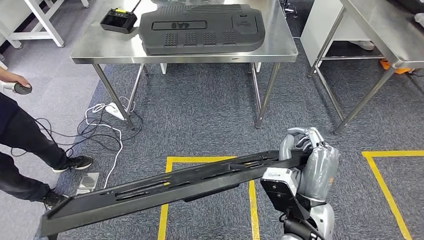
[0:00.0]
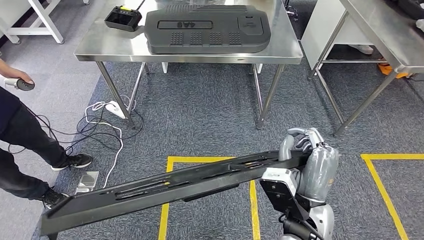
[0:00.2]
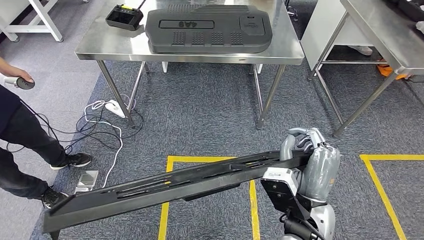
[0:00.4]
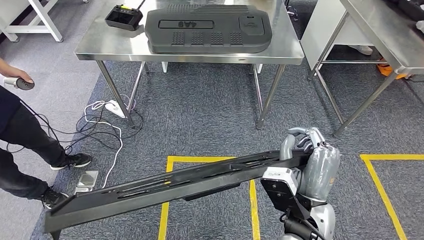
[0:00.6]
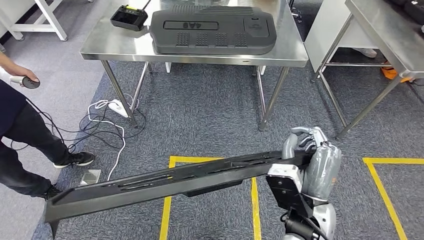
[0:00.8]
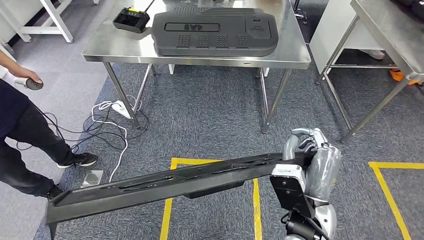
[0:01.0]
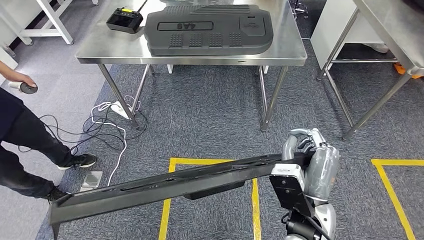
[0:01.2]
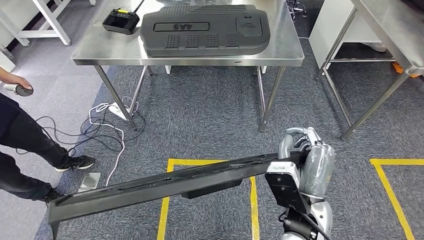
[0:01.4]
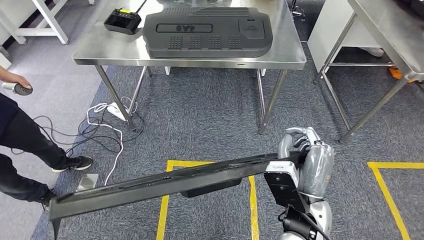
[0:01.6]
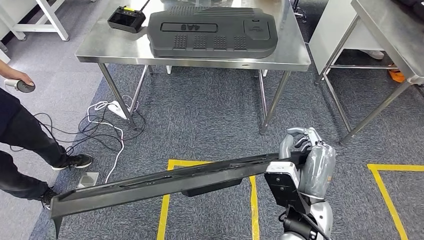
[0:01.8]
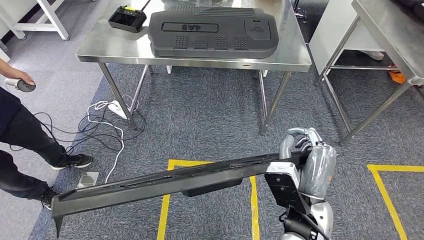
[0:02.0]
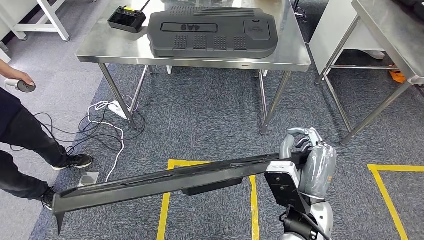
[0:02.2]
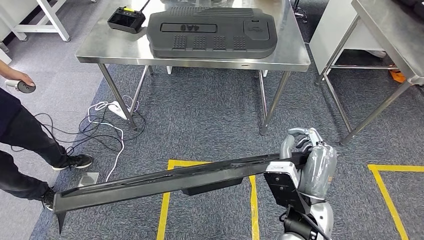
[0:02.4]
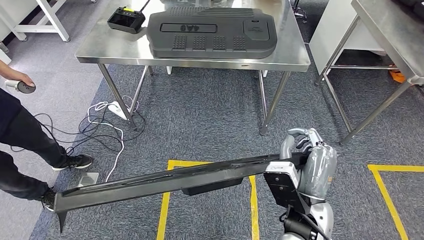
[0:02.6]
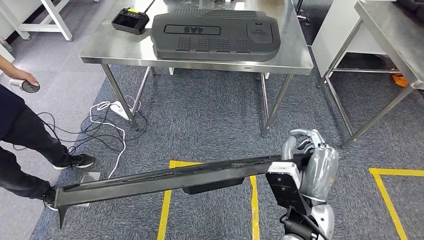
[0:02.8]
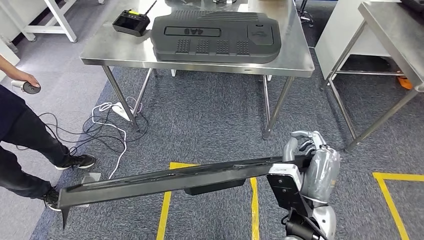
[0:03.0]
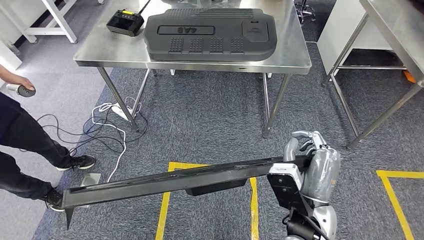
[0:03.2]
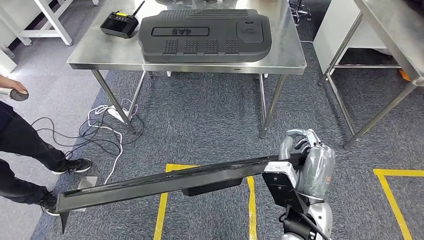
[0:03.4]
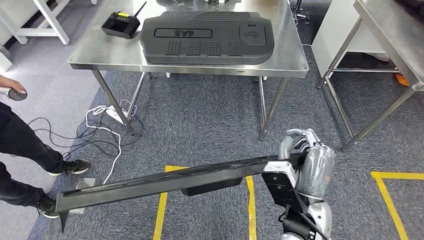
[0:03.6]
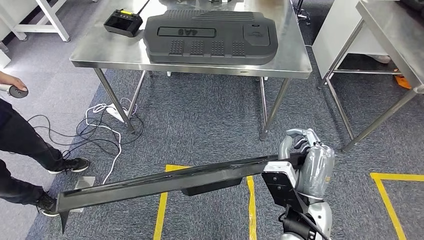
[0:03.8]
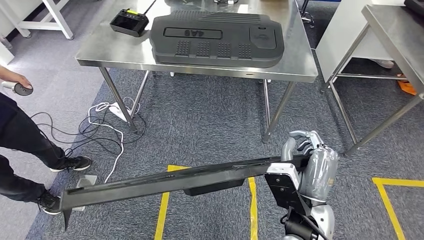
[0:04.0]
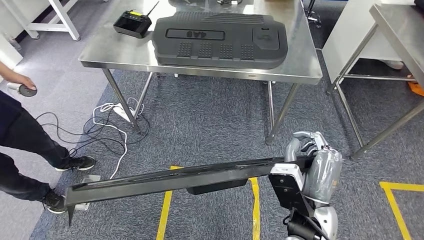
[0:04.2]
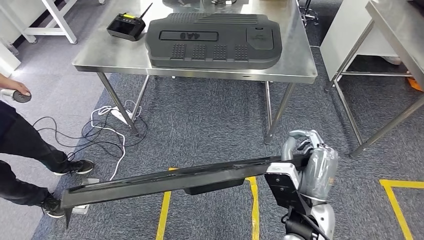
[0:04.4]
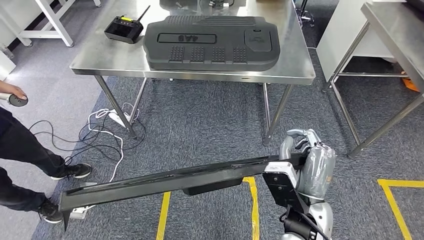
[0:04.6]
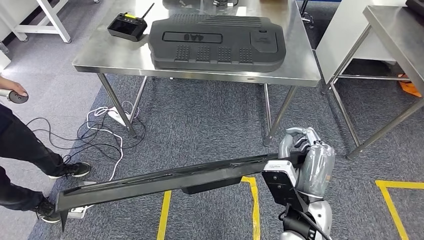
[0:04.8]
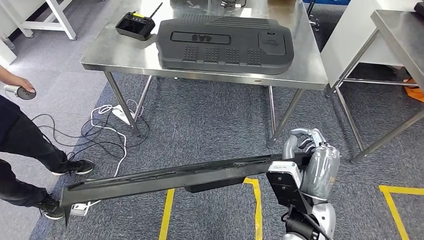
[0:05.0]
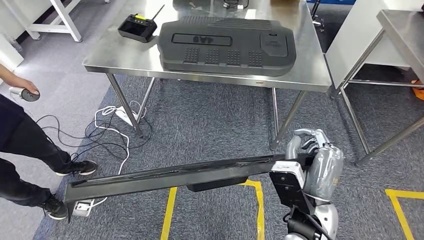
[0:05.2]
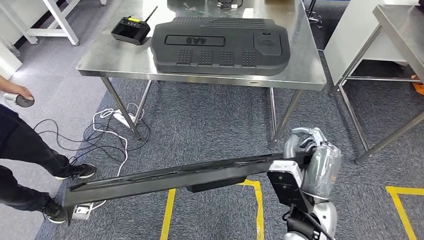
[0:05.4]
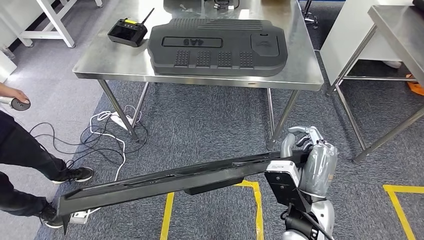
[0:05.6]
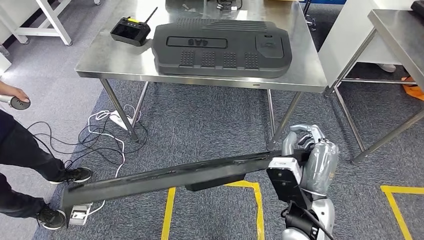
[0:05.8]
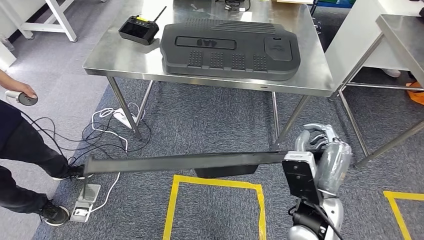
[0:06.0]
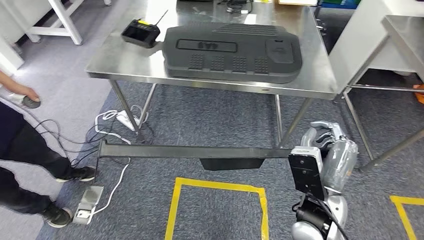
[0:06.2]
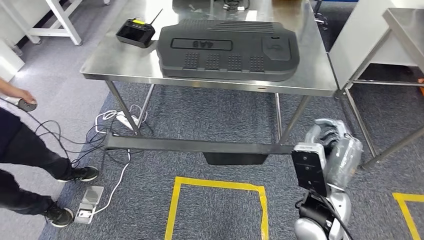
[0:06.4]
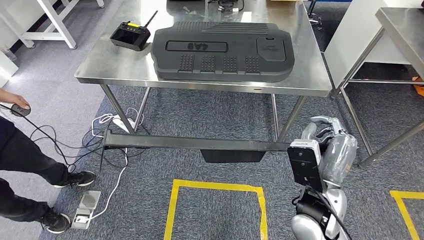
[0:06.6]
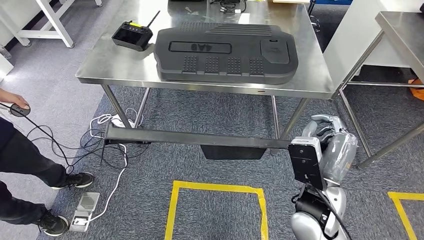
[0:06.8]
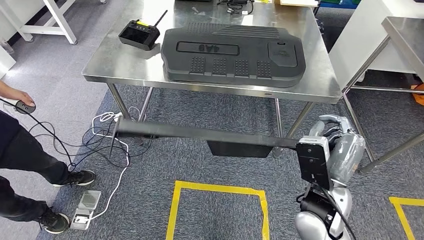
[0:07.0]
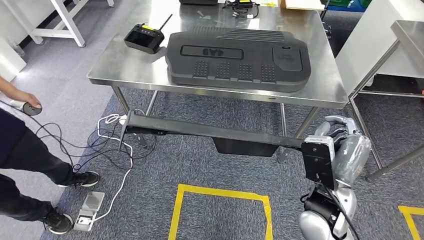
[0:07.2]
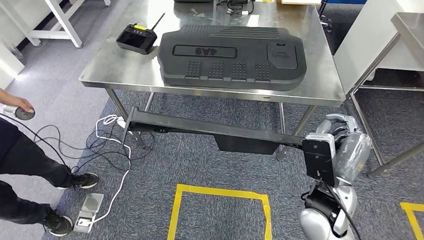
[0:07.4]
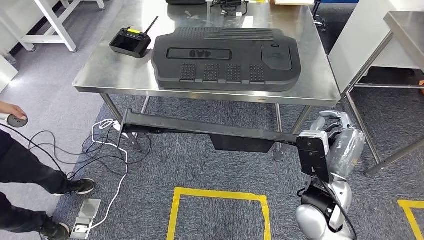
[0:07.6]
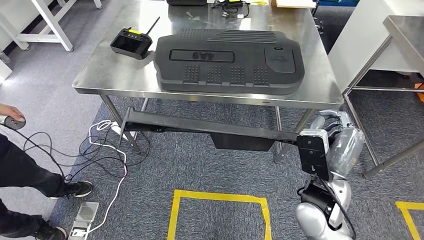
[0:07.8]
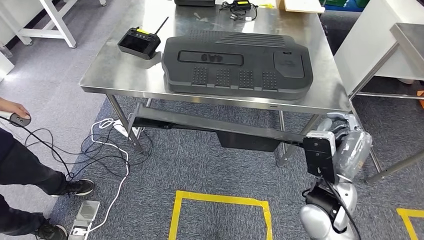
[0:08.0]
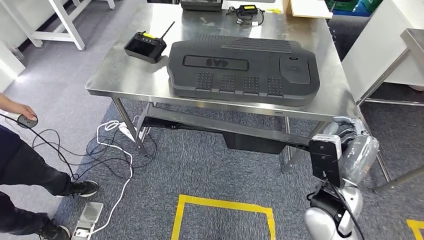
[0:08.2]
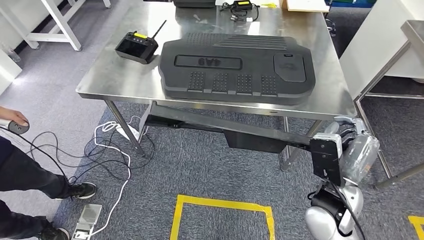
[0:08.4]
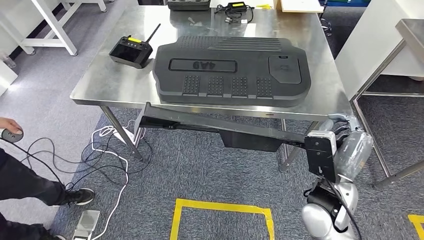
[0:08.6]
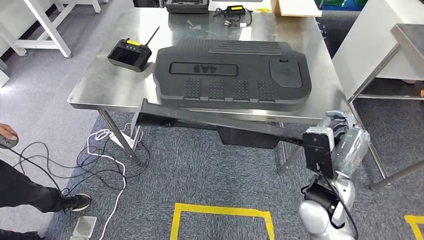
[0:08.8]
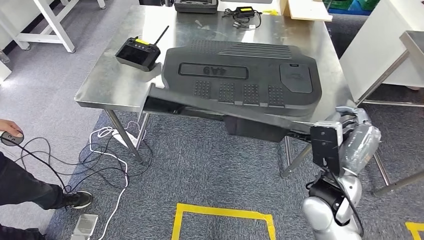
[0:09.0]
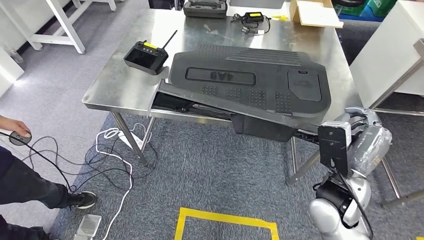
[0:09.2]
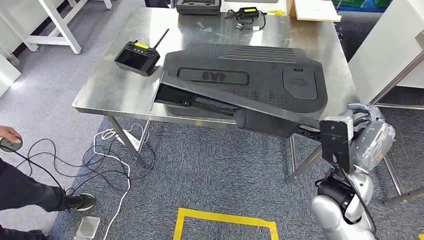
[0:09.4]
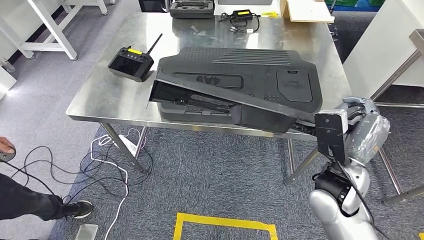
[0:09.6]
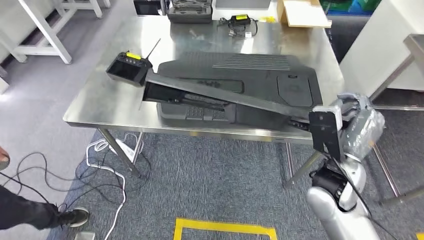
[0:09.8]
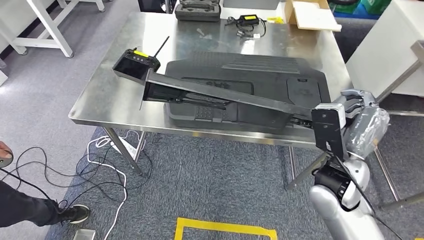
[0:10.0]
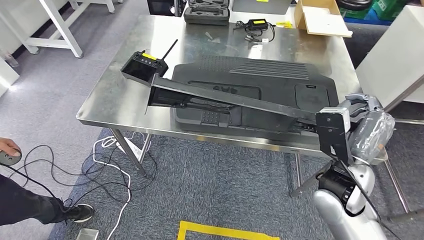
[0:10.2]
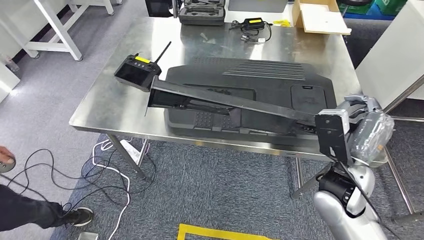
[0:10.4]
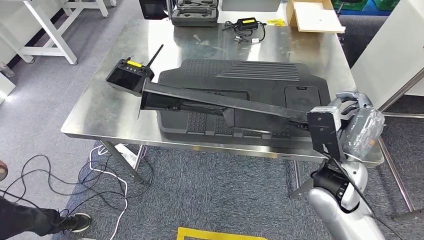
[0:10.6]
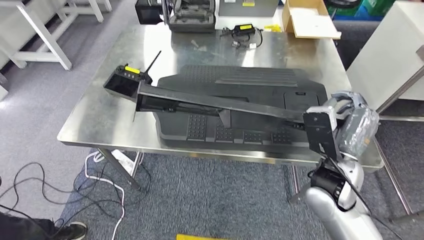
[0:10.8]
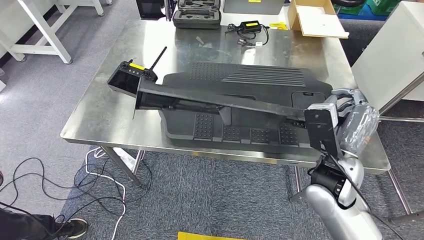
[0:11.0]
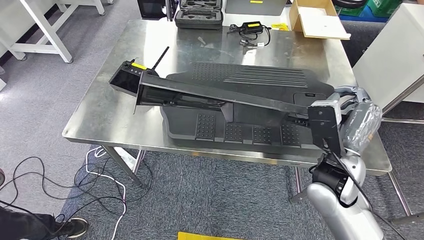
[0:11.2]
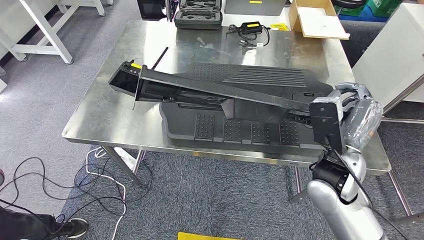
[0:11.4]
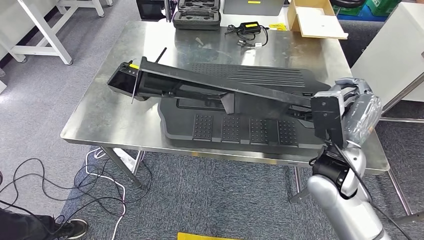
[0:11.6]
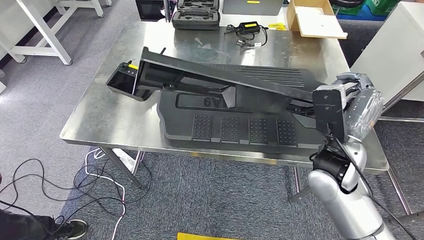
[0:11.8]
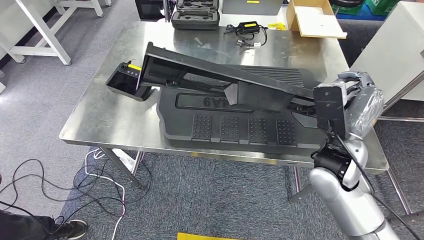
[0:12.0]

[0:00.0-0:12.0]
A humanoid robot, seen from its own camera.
Step, 0:00.0 to 0:08.4: Move the large material to the workbench.

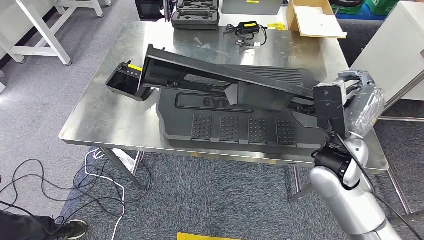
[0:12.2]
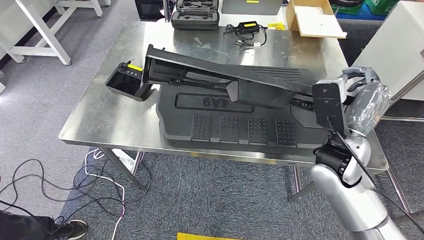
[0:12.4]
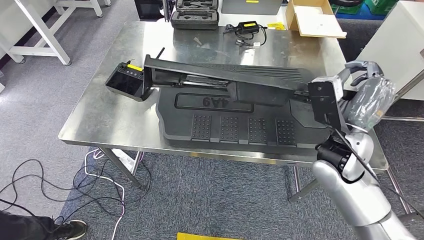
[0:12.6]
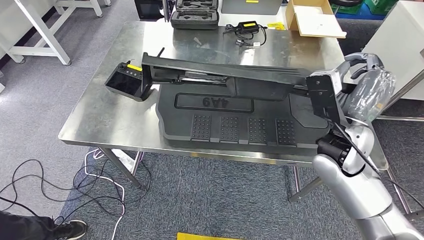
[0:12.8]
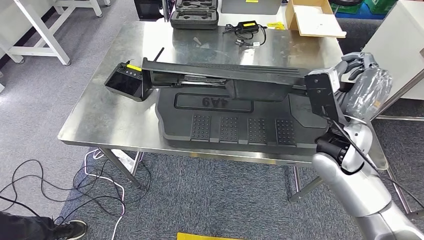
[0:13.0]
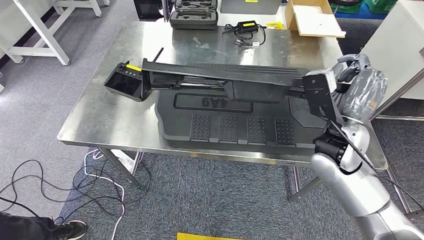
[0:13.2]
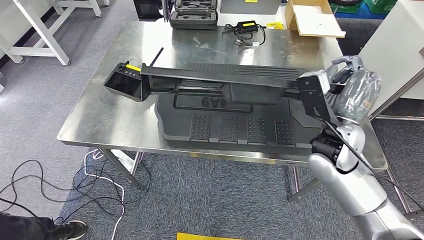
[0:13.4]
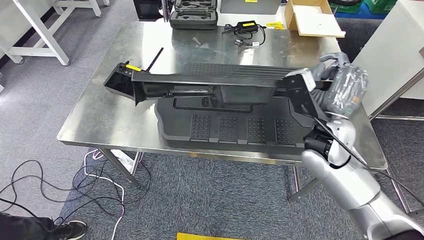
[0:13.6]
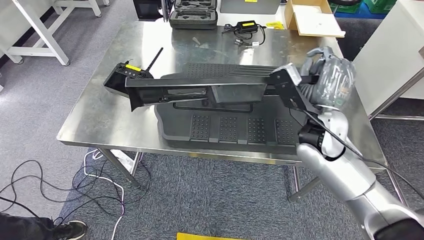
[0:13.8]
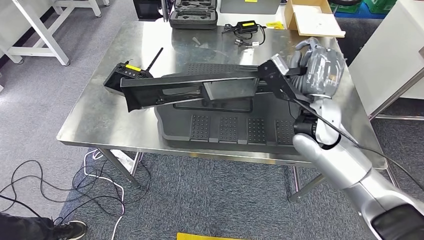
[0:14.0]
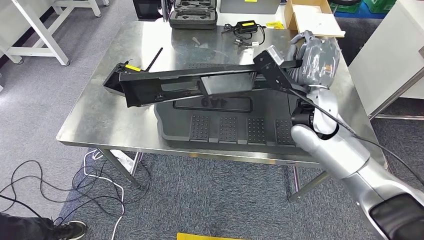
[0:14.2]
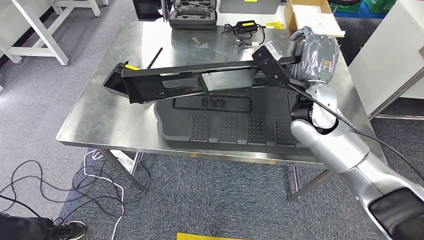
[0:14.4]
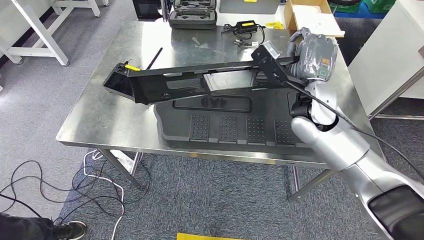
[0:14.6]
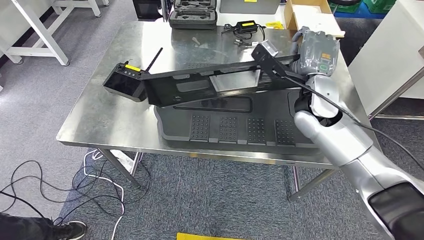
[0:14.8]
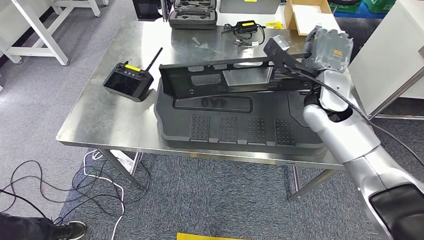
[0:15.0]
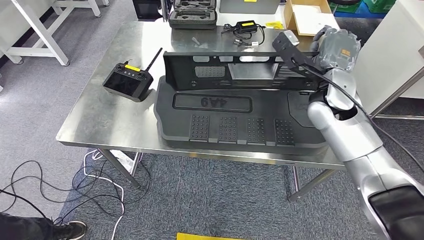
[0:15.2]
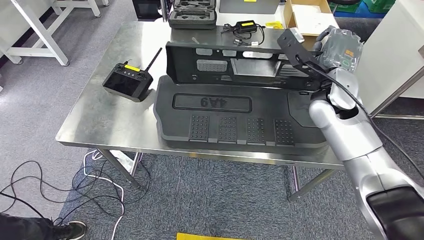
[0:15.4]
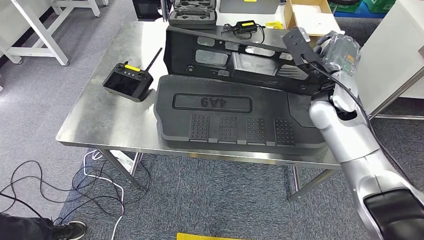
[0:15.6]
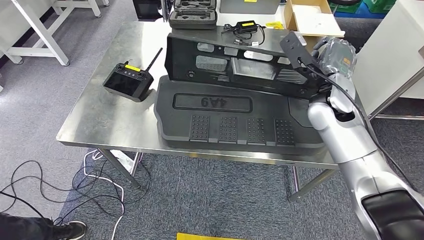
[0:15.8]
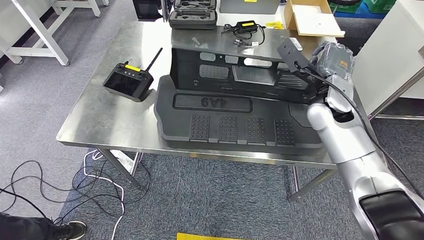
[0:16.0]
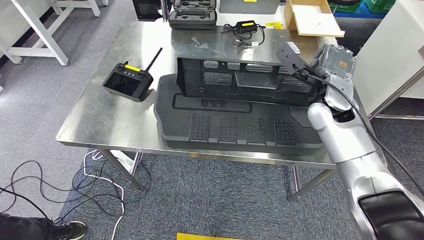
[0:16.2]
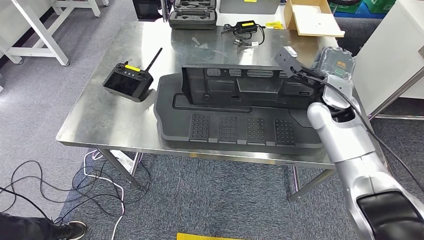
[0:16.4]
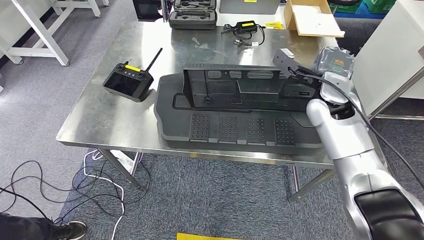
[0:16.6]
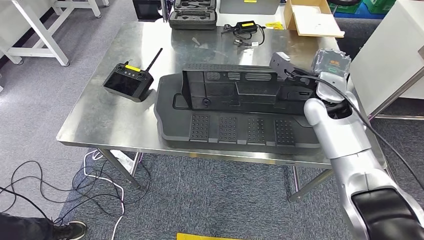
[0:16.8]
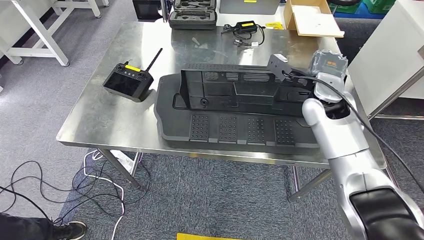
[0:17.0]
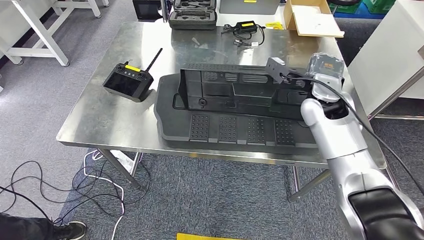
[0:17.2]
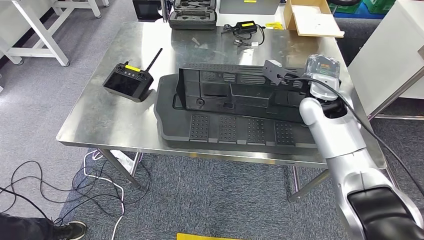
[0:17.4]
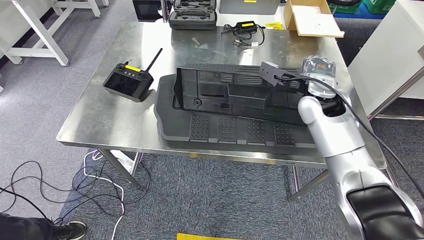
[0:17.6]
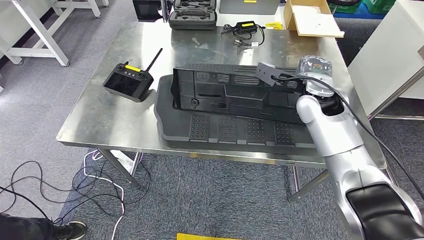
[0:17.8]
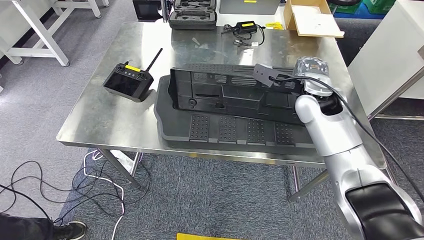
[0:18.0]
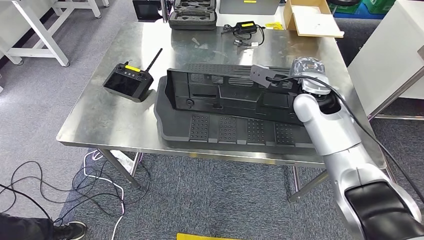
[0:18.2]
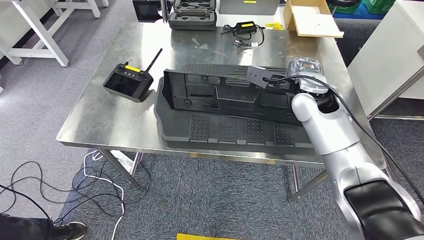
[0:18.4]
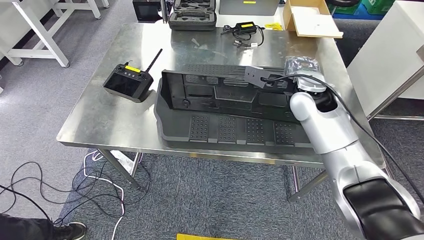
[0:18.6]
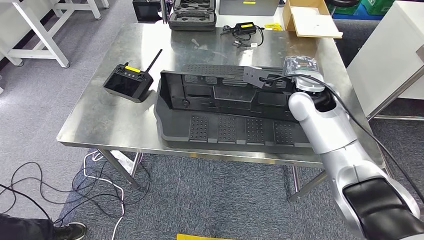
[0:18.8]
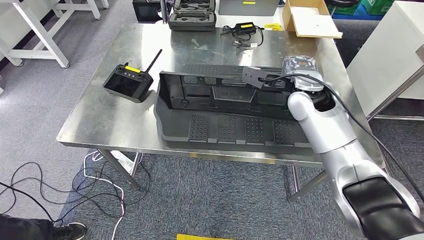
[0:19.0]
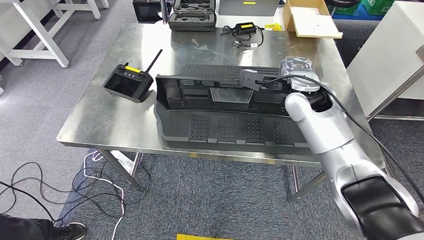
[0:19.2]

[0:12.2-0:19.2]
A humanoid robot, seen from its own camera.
0:12.2 to 0:13.6: There are only small adjustments of the hands.
0:13.6 to 0:15.0: The right hand travels forward and upward by roughly 10 cm.
0:17.8 to 0:19.2: The hands stay close to where they were, moving slightly.
